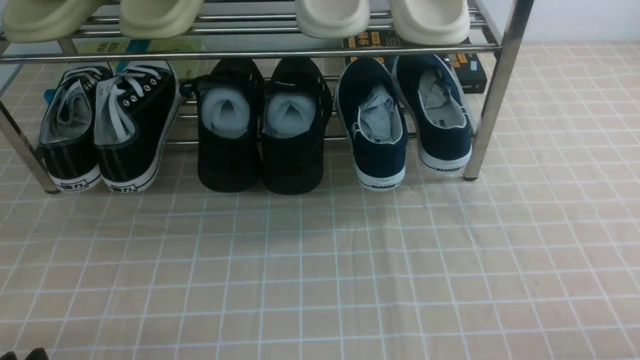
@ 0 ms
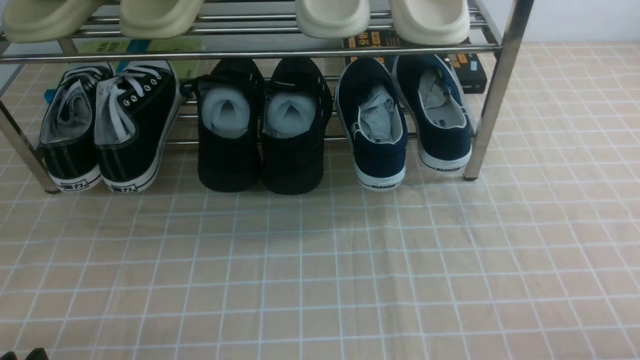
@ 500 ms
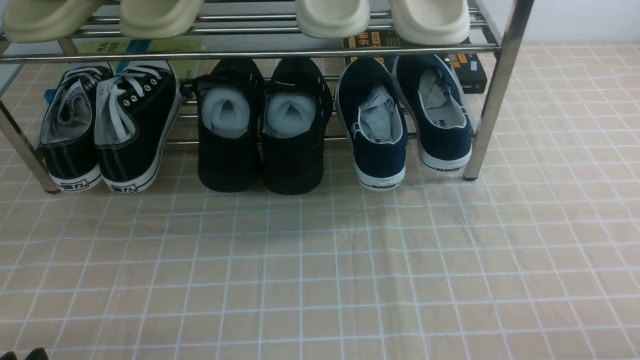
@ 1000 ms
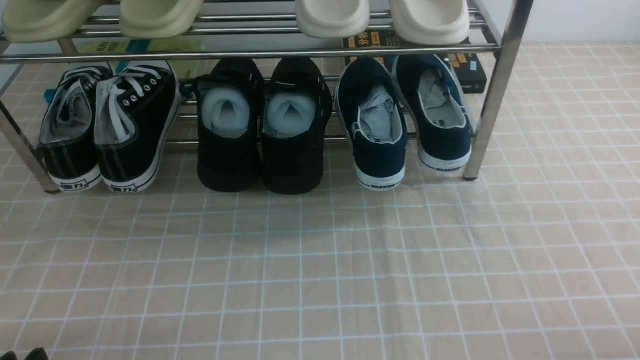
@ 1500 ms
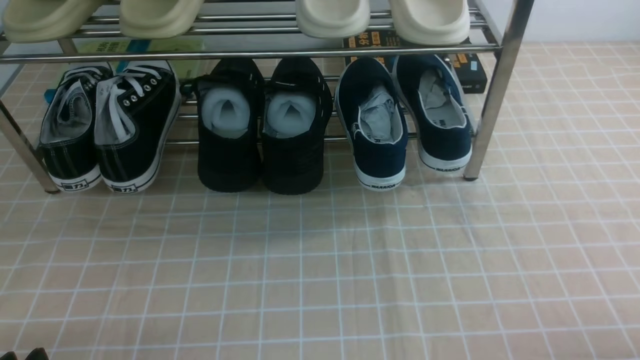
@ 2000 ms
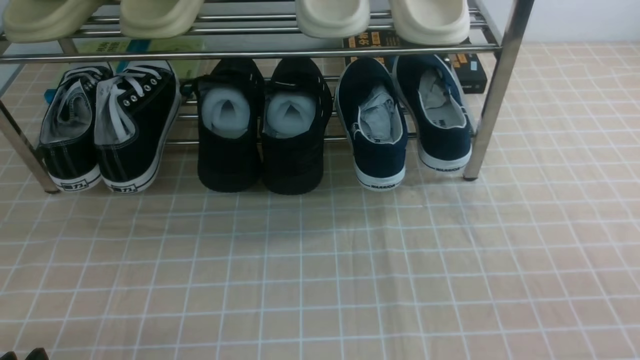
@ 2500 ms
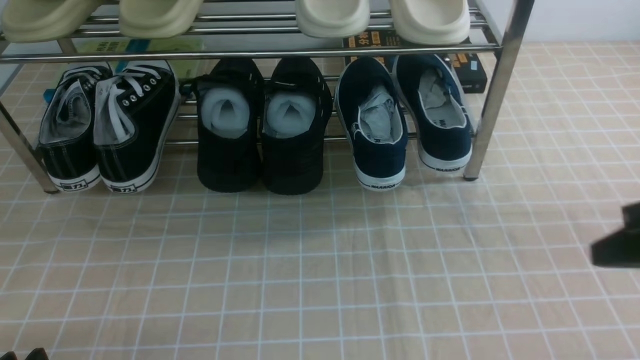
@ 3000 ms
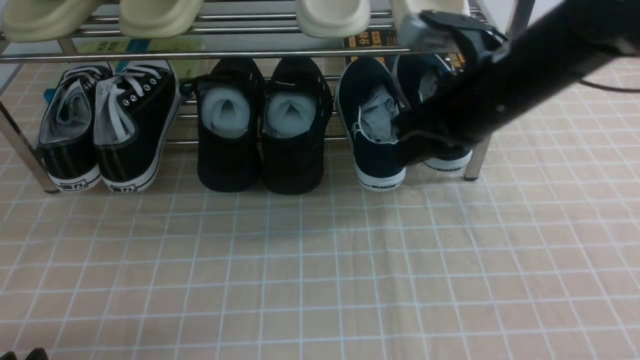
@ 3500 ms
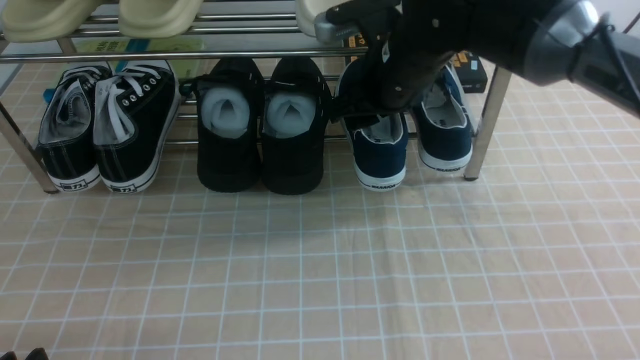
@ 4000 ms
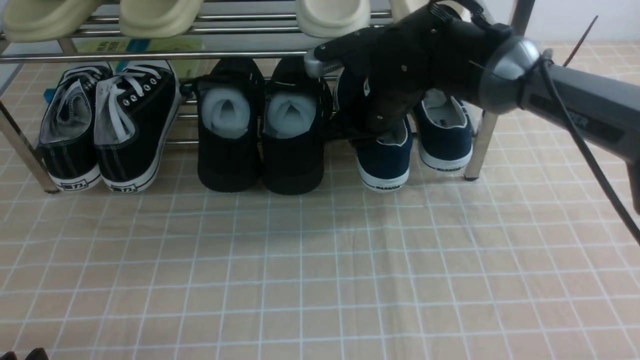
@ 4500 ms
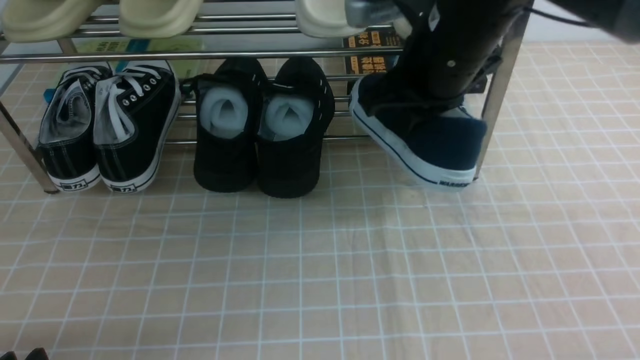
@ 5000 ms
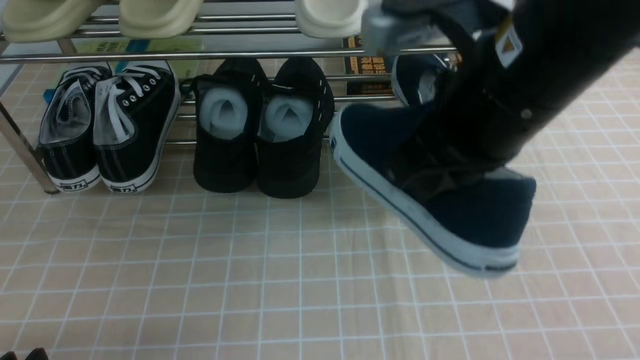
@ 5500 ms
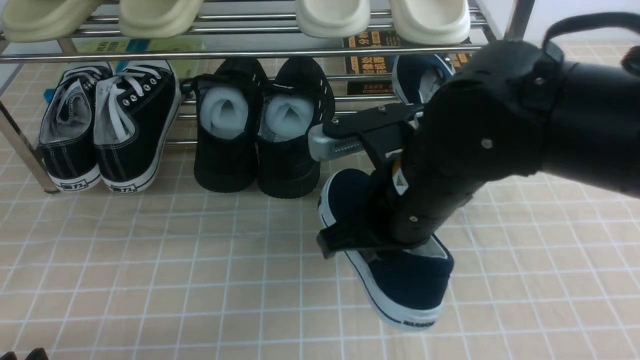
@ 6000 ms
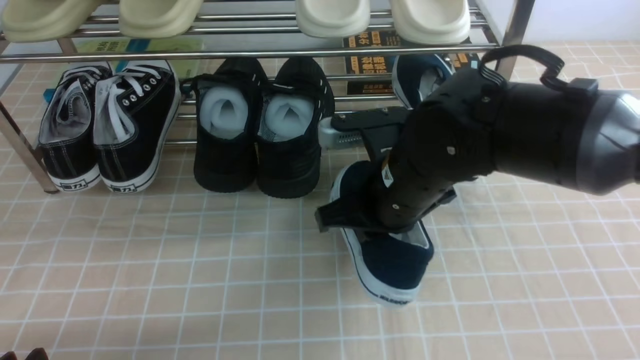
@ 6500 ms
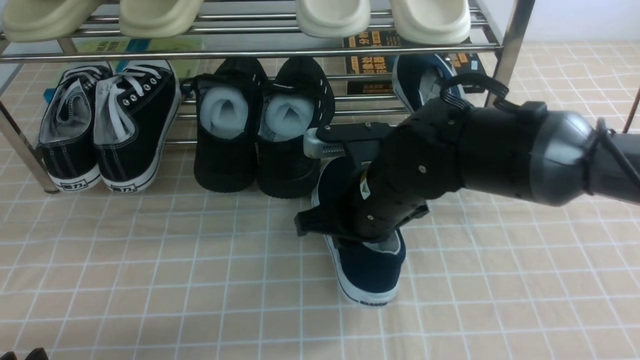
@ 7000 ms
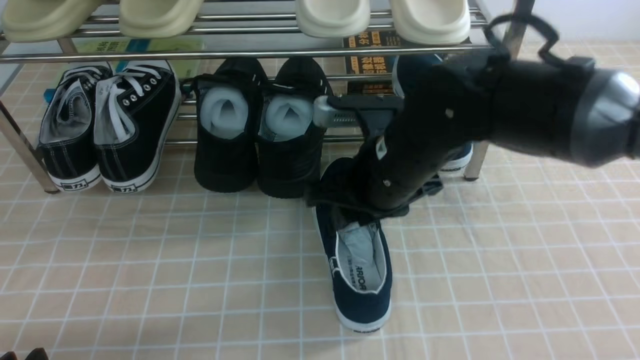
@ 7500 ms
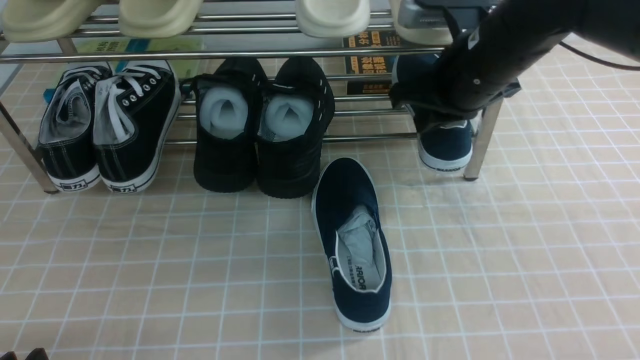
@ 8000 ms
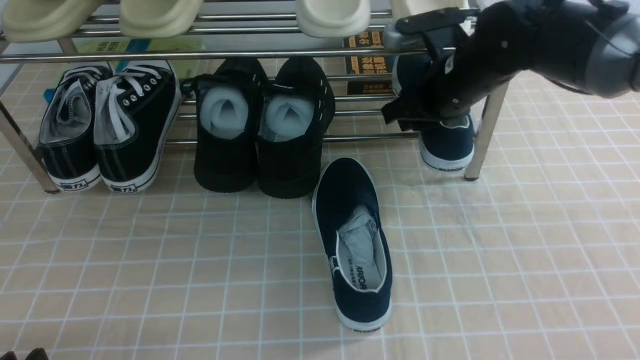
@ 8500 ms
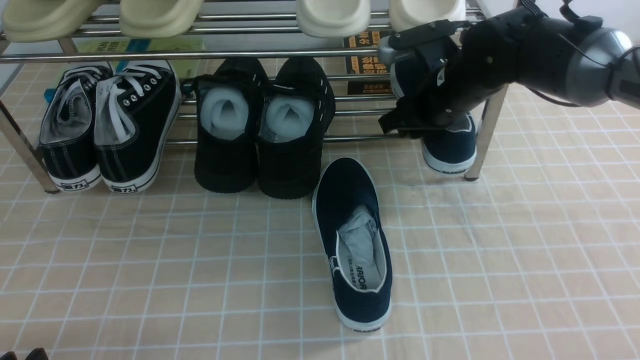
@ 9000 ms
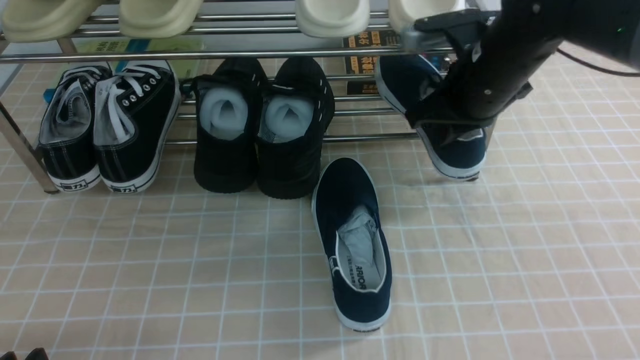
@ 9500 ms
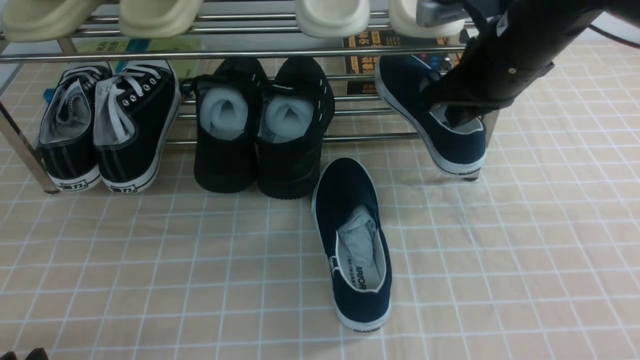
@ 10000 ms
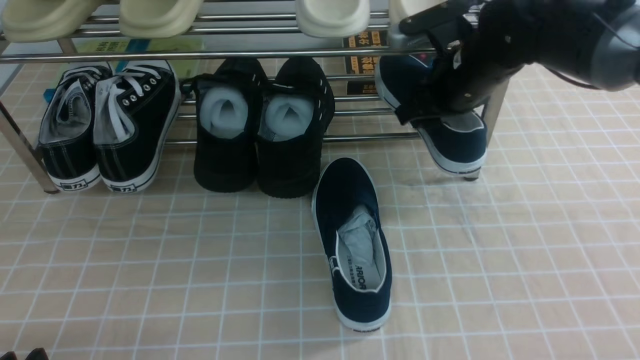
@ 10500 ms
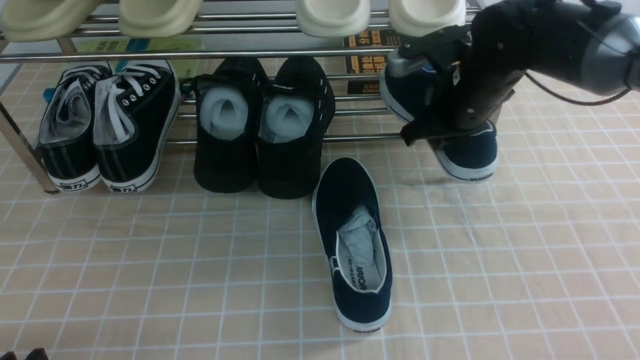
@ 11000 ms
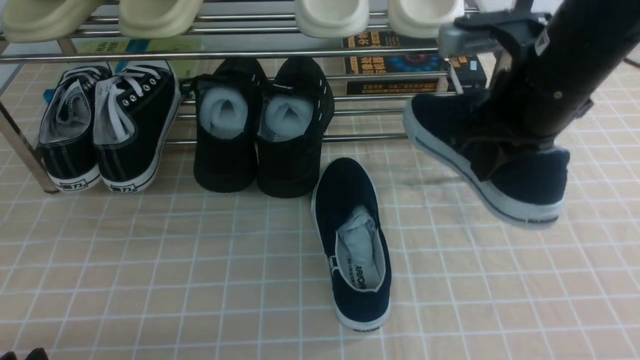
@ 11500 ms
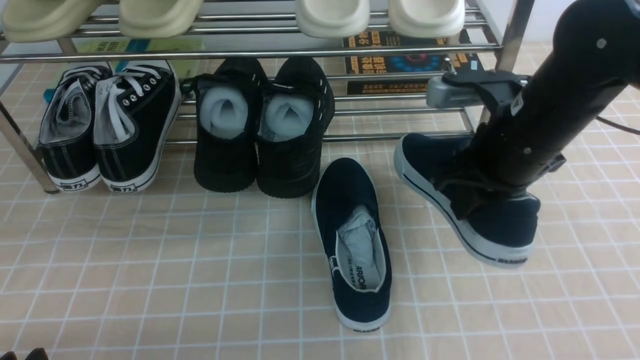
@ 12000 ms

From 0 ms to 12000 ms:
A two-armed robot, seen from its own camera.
Step, from 0 ms to 4000 ms: use the right arm to clamp a shoe on the right side of the shoe rack.
Step, from 4500 ms to 7000 ms: use the right arm to take out the clamped shoe from the shoe rack and put it down.
Step, from 7500 ms to 9000 ms: use the right arm to clamp a shoe on the right side of the shoe rack.
From 2000 ms to 4000 ms: The right gripper goes roughly 40 cm forward and to the left, and closes and opens again.
From 4000 ms to 6000 ms: The right gripper moves backward, about 15 cm, and closes up.
From 6000 ms to 8000 ms: The right gripper travels forward and to the right by some 15 cm, and opens and closes again.
From 8000 ms to 10000 ms: The right gripper moves roughly 5 cm downward and comes back, and opens and closes again.
From 10000 ms to 12000 ms: The right gripper travels backward by roughly 5 cm, and opens and closes again.

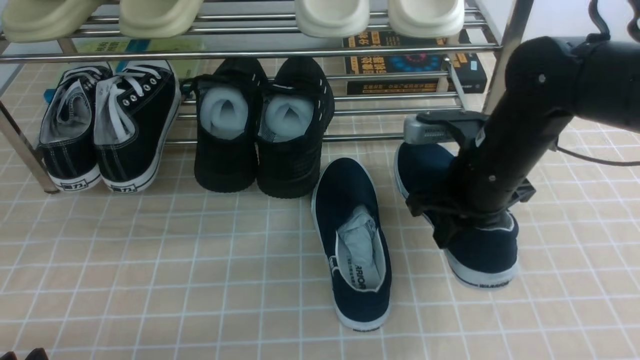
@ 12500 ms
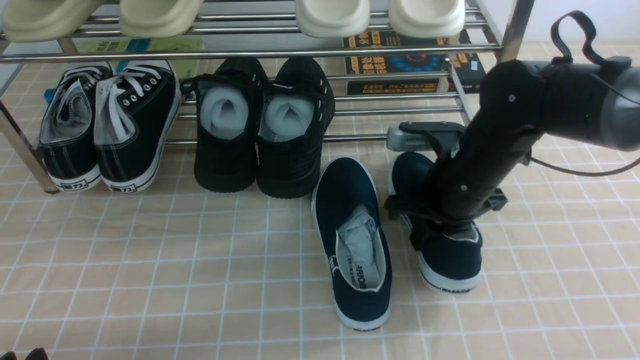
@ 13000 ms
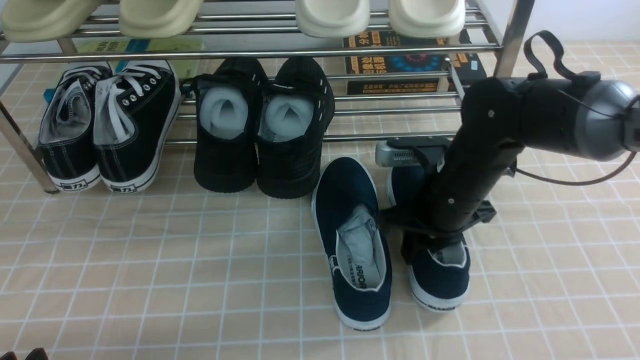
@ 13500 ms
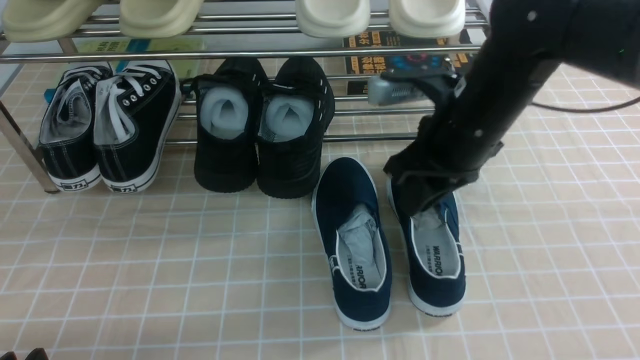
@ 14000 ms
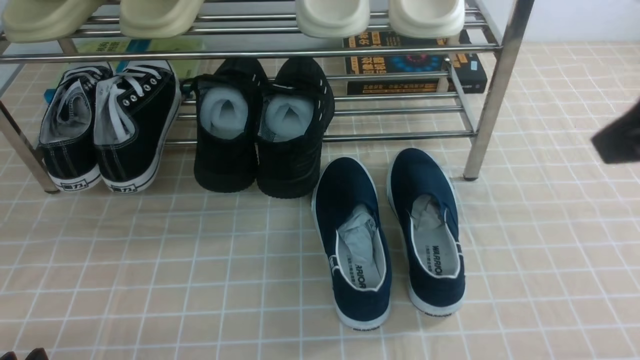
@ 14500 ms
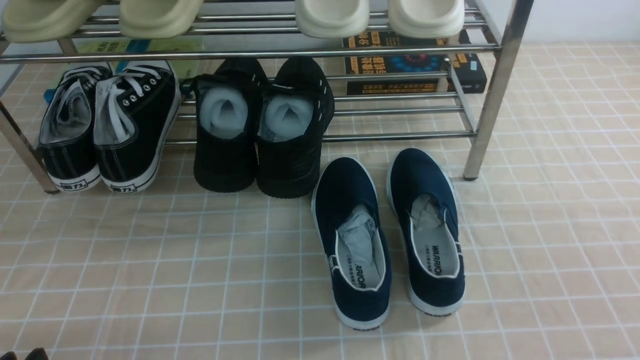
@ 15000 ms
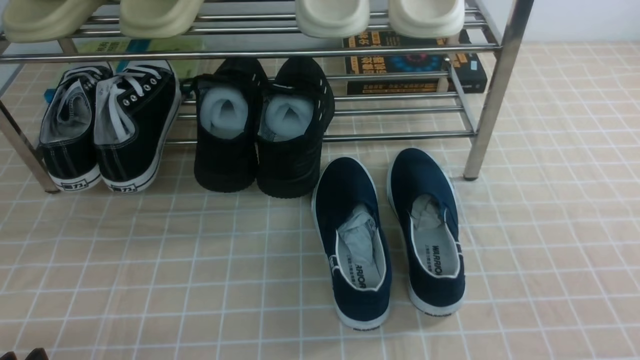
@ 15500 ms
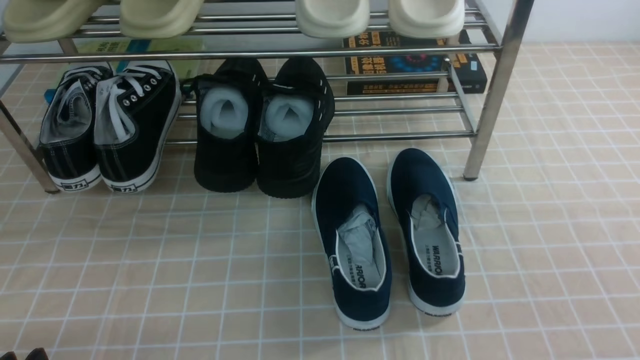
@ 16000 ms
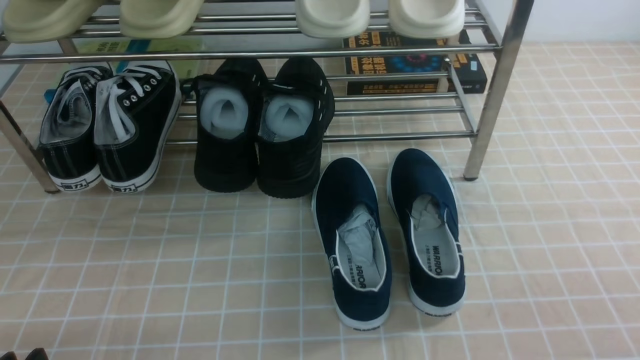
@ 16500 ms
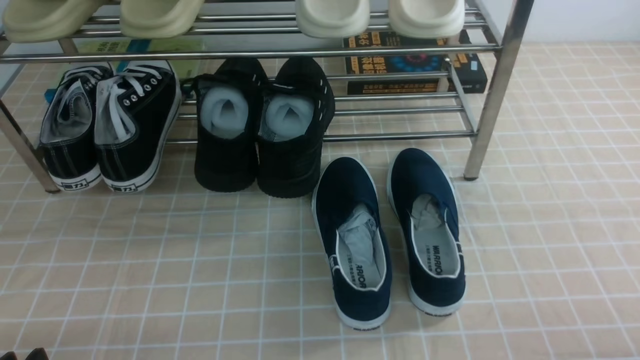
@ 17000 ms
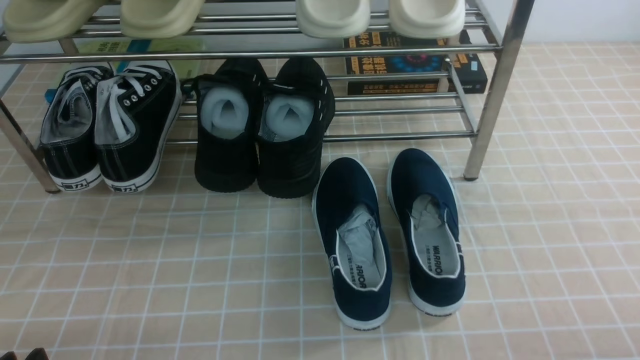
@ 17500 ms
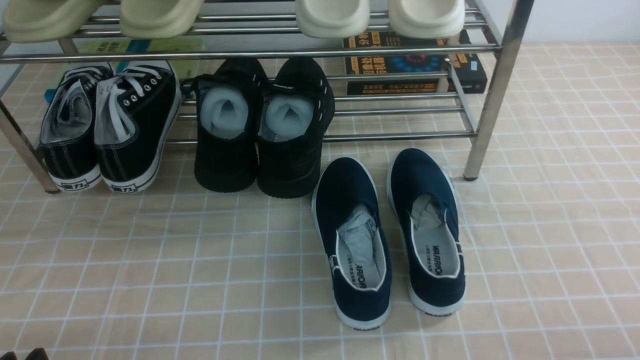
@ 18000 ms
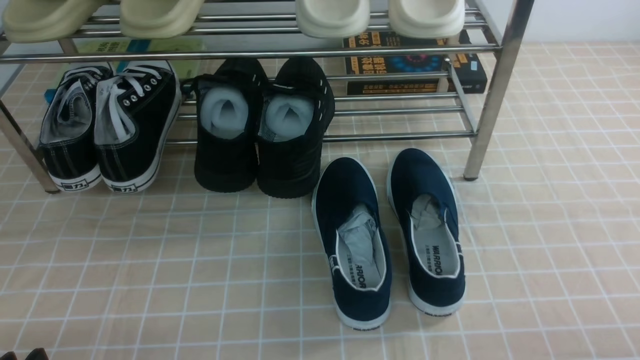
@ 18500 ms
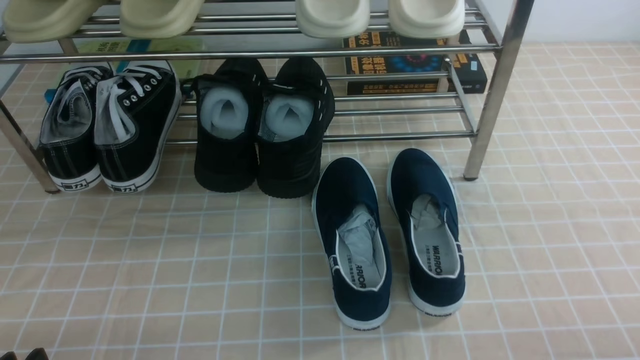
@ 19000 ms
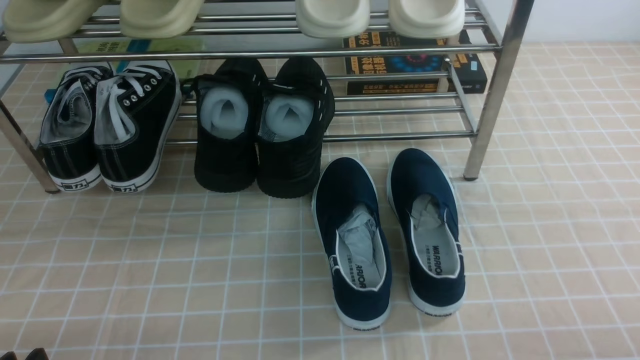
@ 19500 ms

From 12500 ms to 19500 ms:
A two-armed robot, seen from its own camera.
From 12500 ms to 14500 ms: The right gripper heads upward and backward, covering approximately 20 cm, and opens, then closes once more.
From 14500 ms to 16000 ms: The right gripper is displaced backward, downward and to the right by about 20 cm.
From 17500 ms to 19500 ms: Neither gripper changes place.
